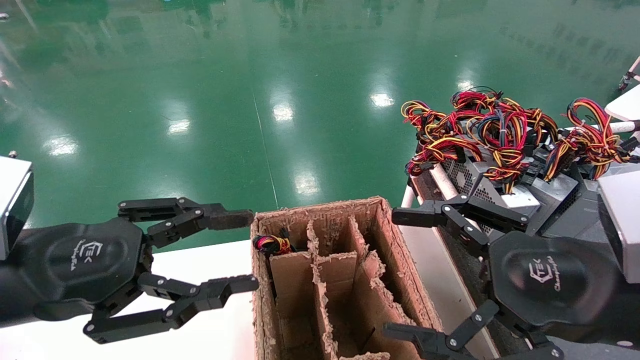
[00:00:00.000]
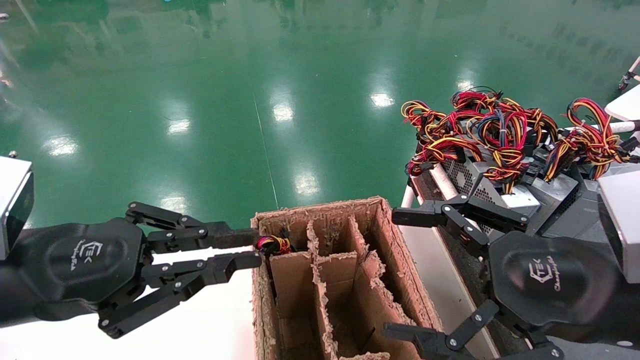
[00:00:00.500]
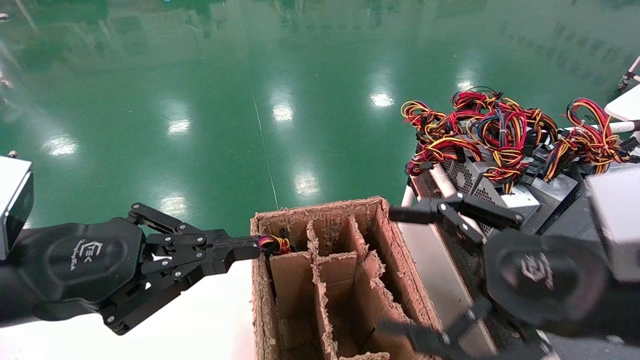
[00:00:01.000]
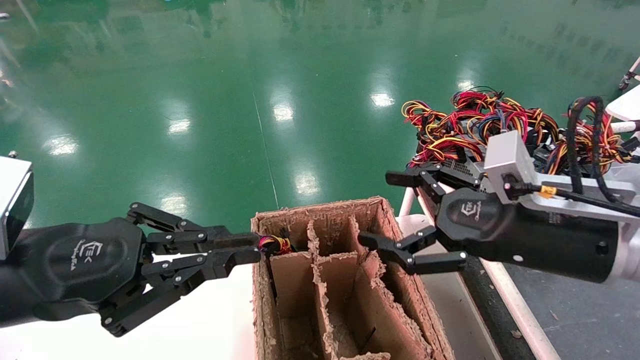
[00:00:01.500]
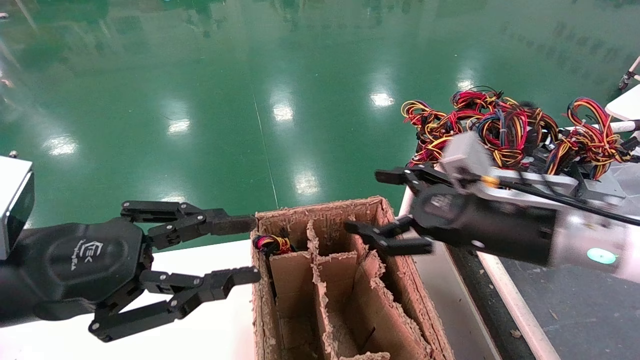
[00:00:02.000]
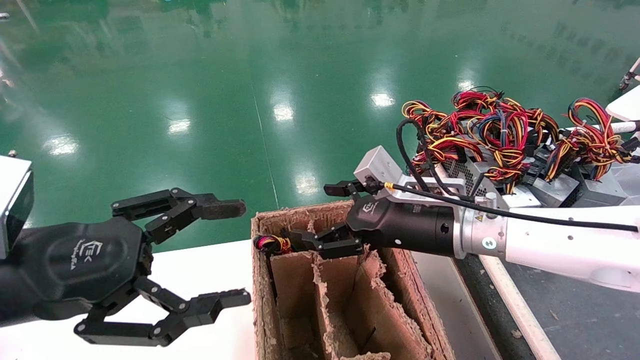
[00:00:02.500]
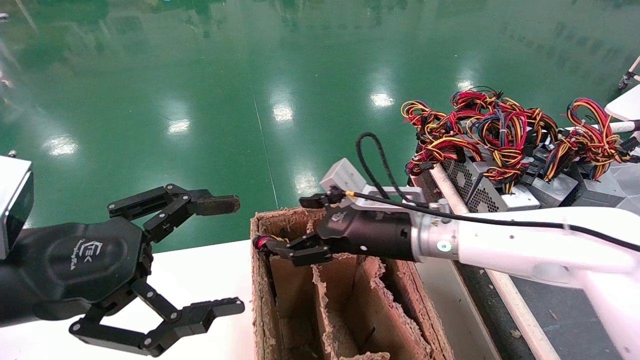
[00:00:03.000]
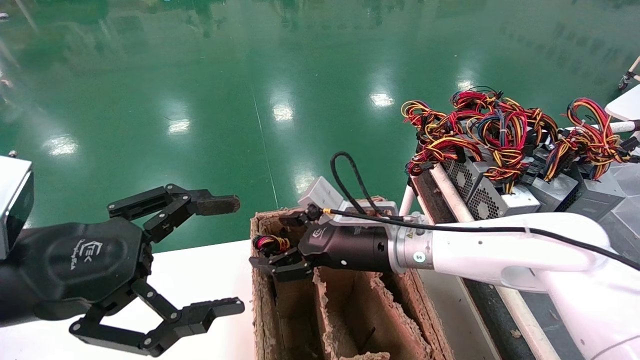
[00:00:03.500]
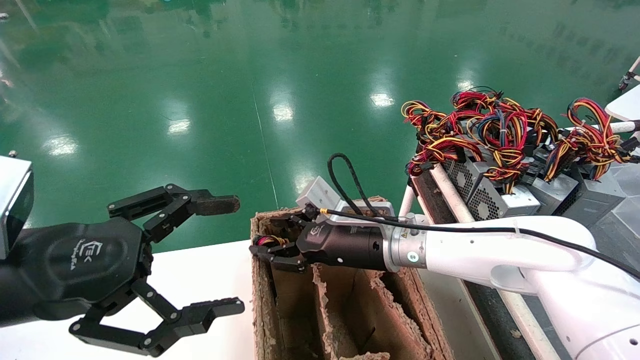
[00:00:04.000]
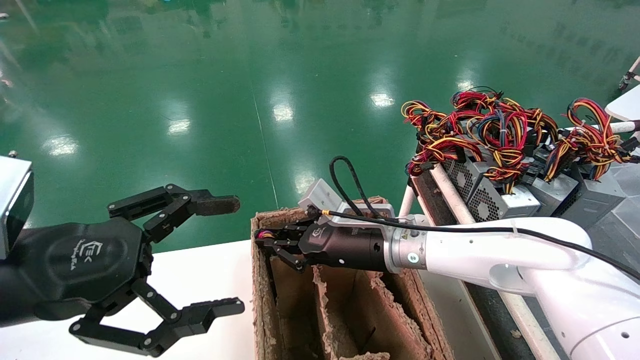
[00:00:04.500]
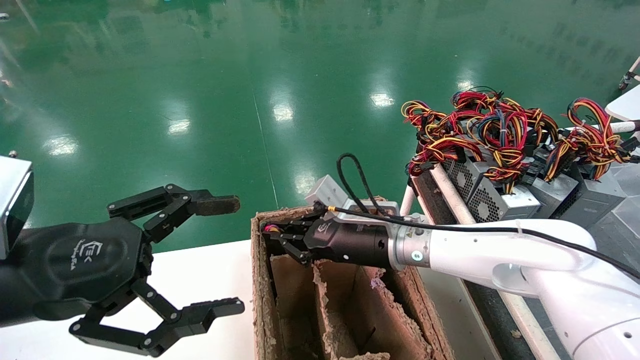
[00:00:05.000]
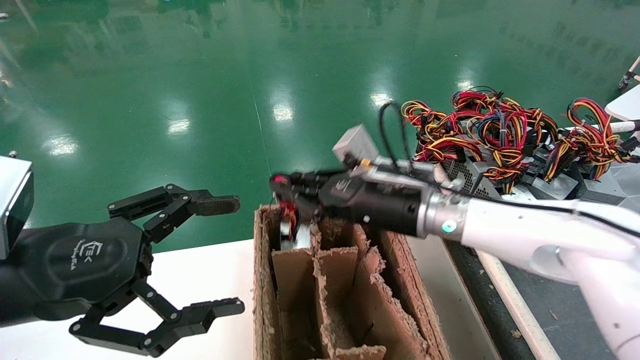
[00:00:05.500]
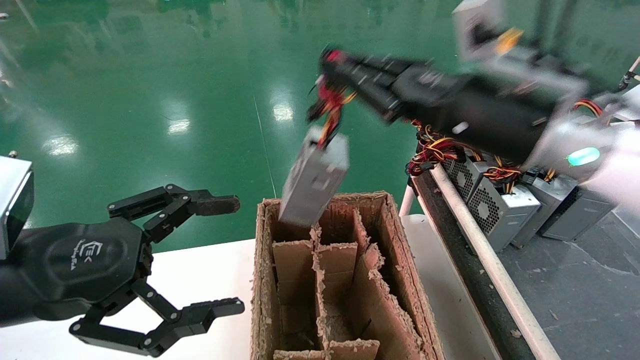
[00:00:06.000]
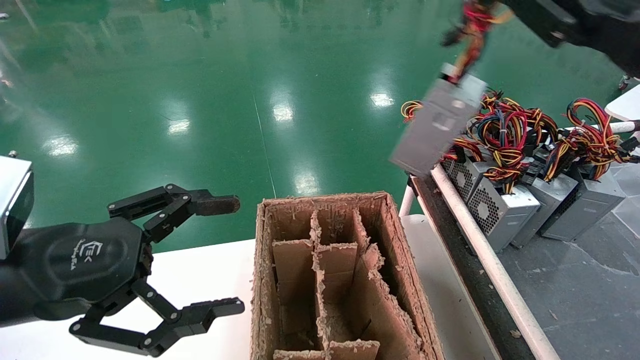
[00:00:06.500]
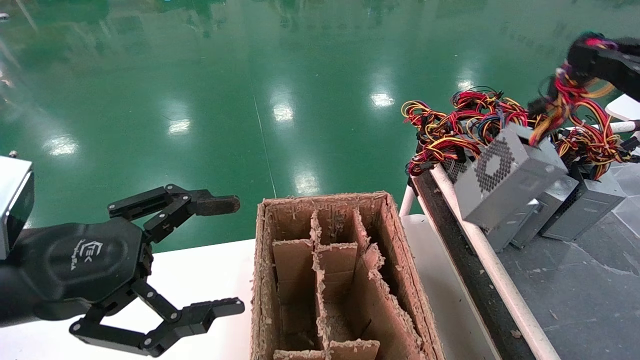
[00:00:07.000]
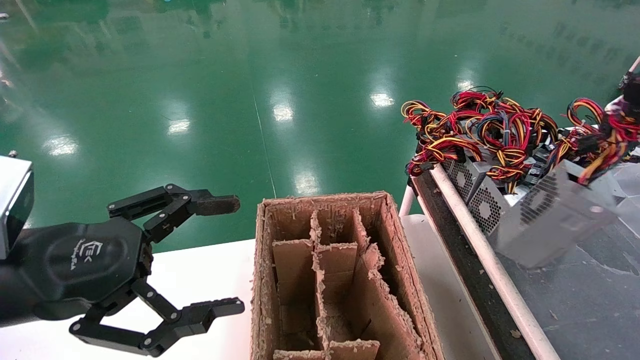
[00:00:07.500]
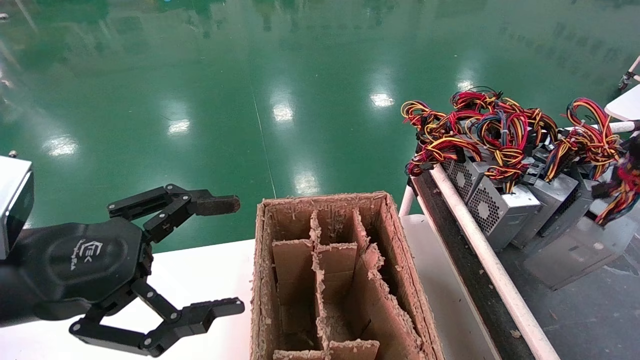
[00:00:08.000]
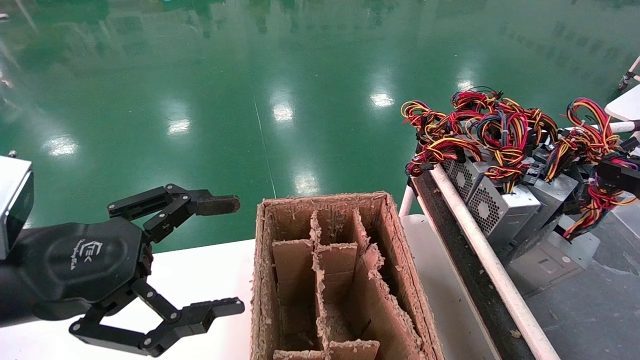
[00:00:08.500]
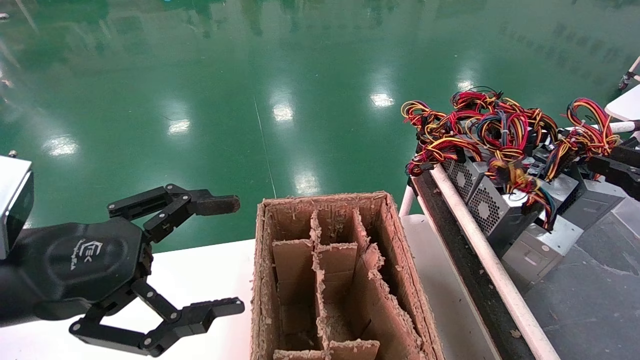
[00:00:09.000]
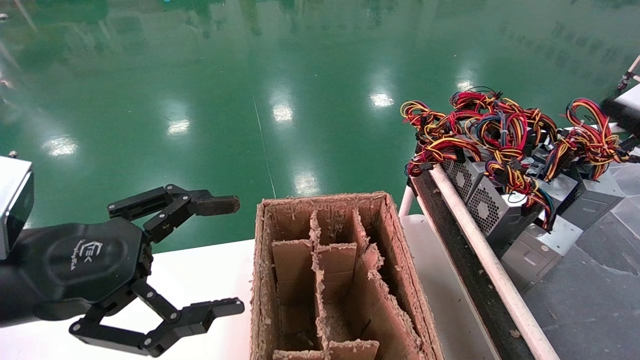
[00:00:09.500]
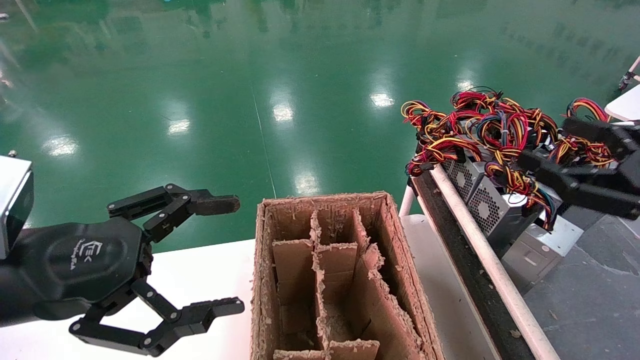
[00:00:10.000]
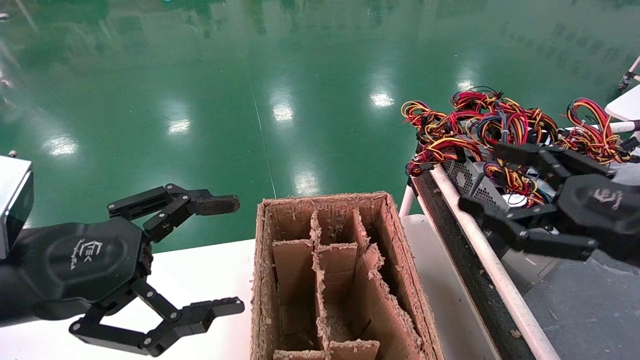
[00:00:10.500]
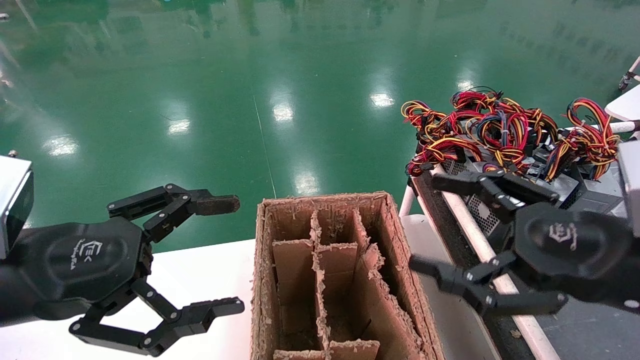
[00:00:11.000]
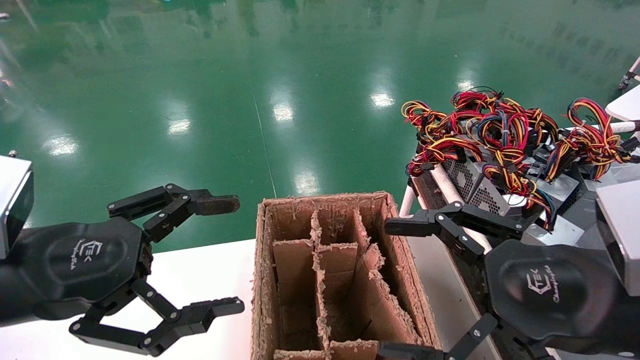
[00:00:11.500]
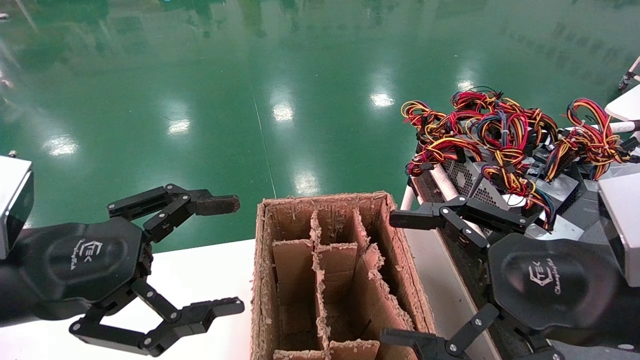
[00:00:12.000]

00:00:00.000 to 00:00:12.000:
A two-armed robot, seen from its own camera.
Step, 00:00:01.000 to 00:00:04.500: Grab and lift the power supply from the large box.
Step, 00:00:05.000 to 00:00:08.500: Place the power supply on the operating table.
00:00:00.000 to 00:00:02.000: The right gripper moves forward, roughly 10 cm.
00:00:02.000 to 00:00:04.000: The right gripper goes roughly 20 cm to the left, forward and downward, and closes up. The left gripper opens.
00:00:04.000 to 00:00:06.000: The right gripper travels upward, to the right and backward by roughly 25 cm, and closes up.
00:00:06.000 to 00:00:08.000: The right gripper heads to the right and backward, covering some 30 cm.
00:00:08.000 to 00:00:10.000: The right gripper is displaced to the left by approximately 10 cm, and opens its fingers.
00:00:10.000 to 00:00:12.000: The right gripper moves to the left, approximately 10 cm.

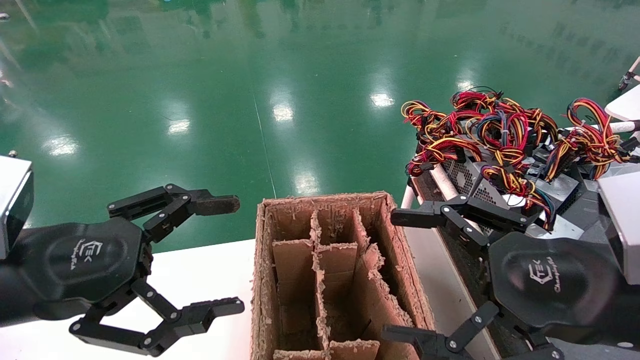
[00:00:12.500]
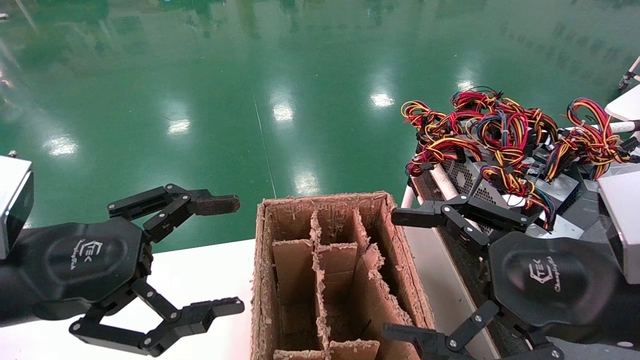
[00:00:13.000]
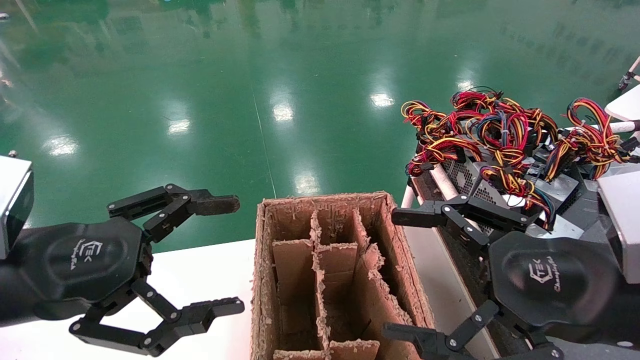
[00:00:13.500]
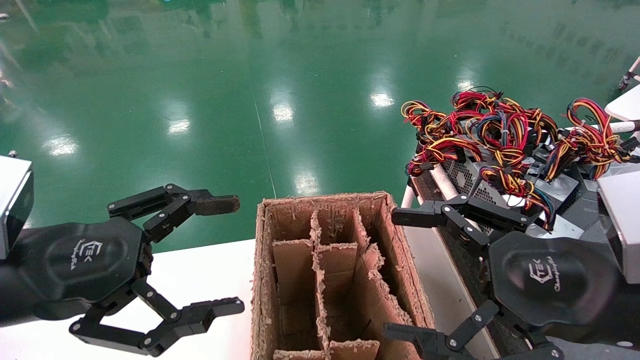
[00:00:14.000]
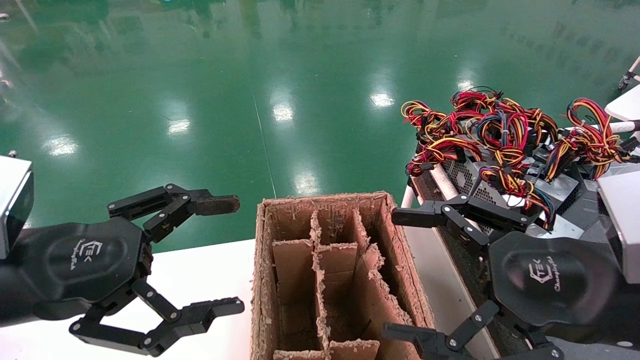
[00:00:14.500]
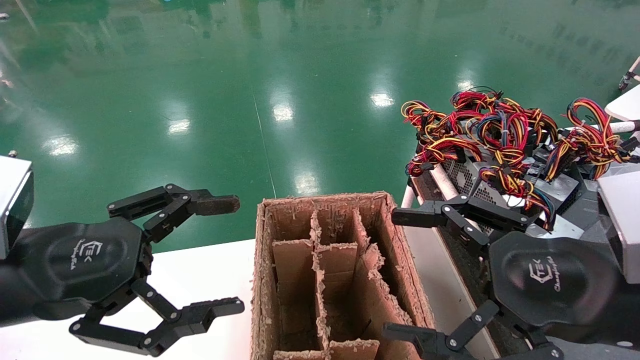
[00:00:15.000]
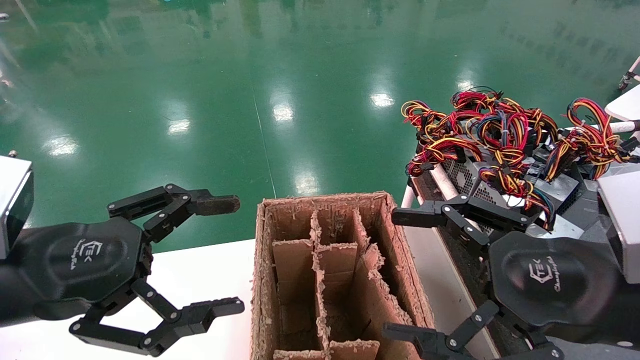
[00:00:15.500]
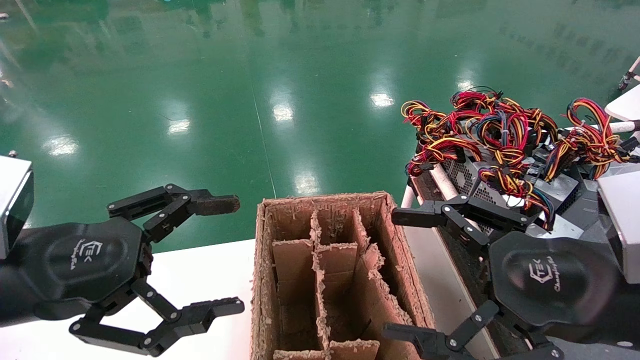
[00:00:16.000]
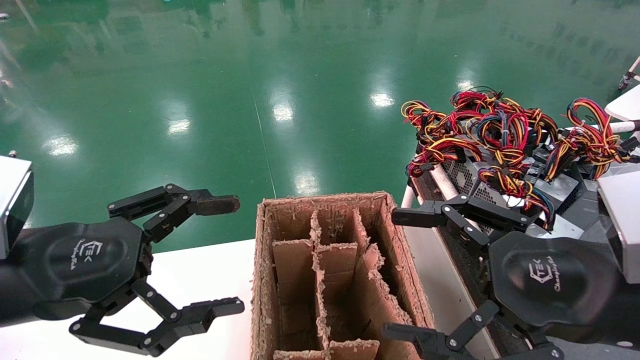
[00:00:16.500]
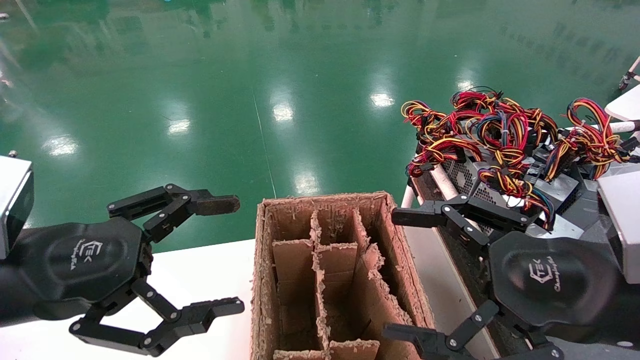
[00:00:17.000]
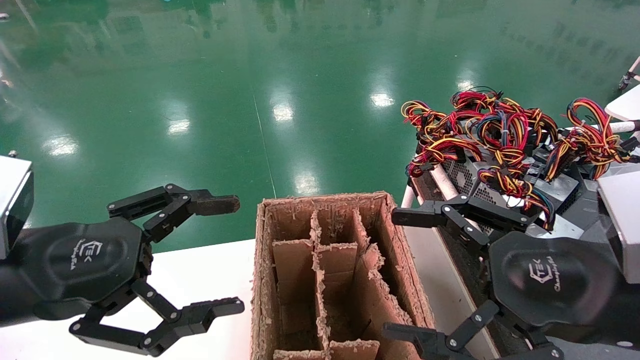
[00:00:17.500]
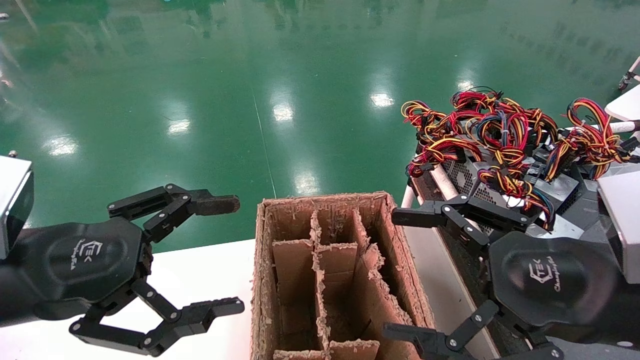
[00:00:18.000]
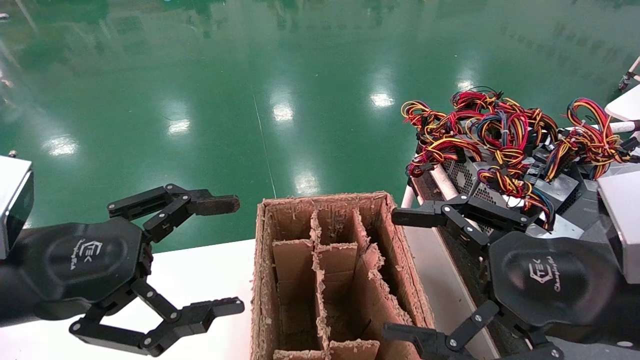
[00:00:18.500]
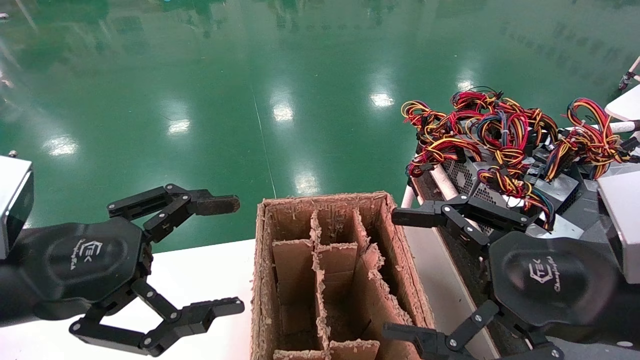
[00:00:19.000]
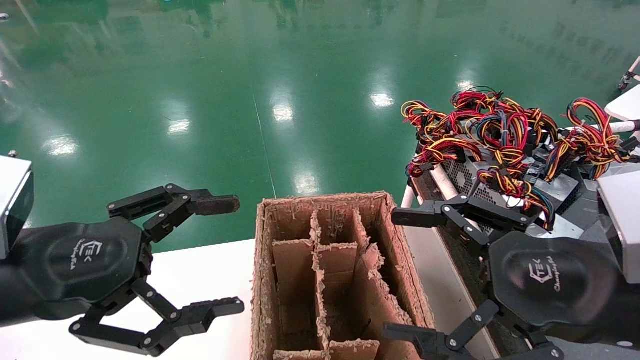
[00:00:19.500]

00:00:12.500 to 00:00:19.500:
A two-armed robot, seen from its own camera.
00:00:12.500 to 00:00:19.500: Neither gripper changes place.
